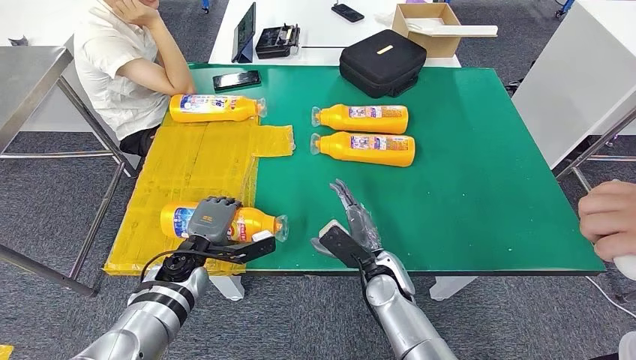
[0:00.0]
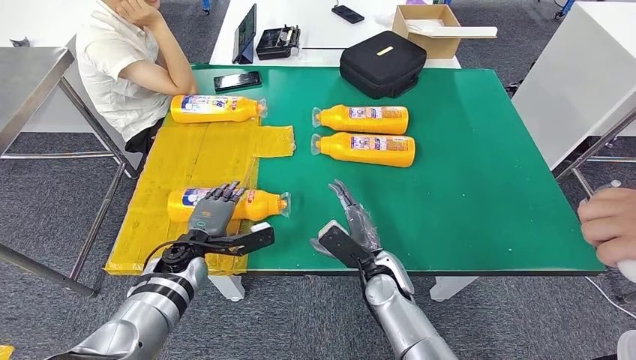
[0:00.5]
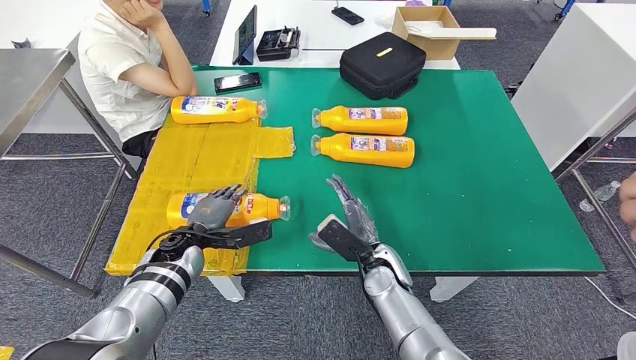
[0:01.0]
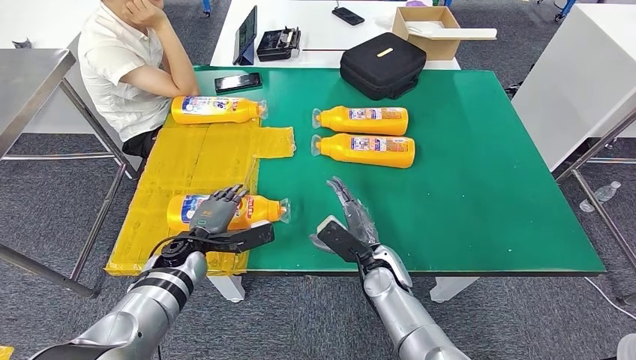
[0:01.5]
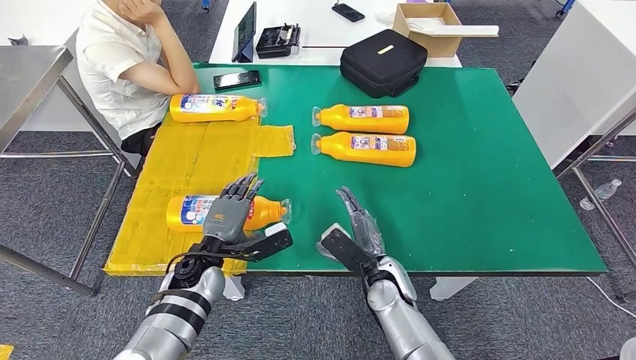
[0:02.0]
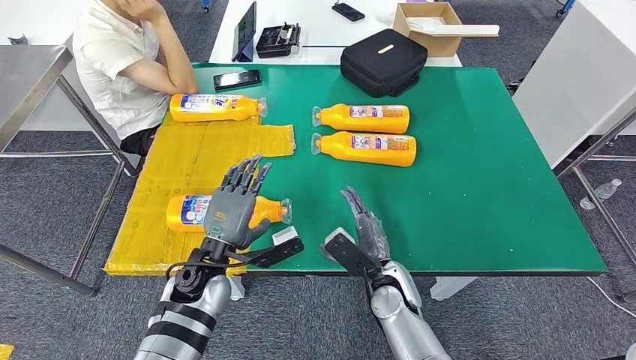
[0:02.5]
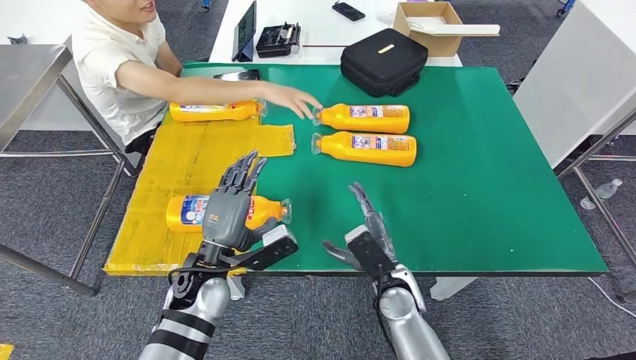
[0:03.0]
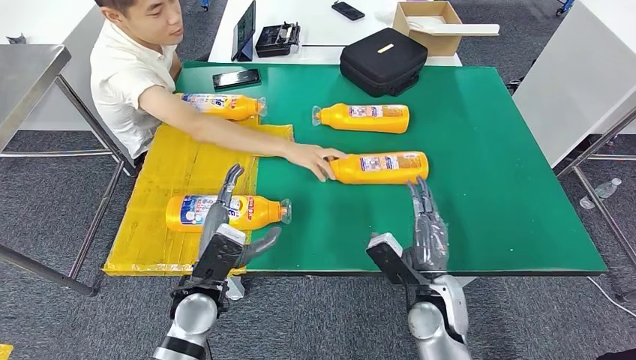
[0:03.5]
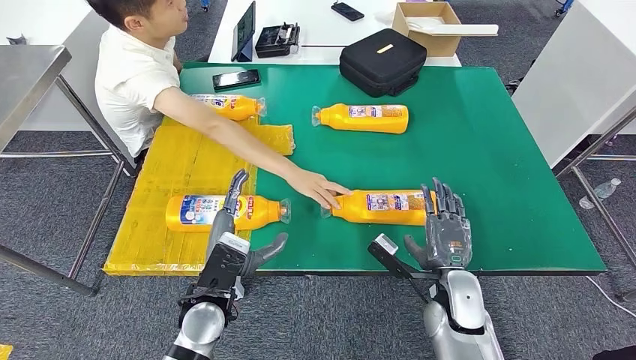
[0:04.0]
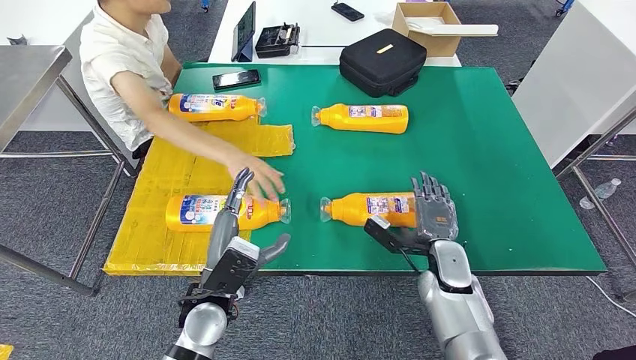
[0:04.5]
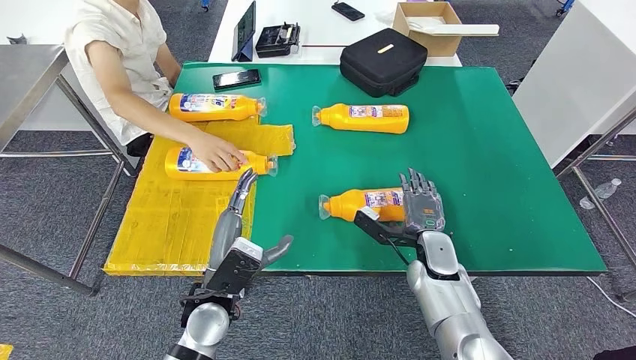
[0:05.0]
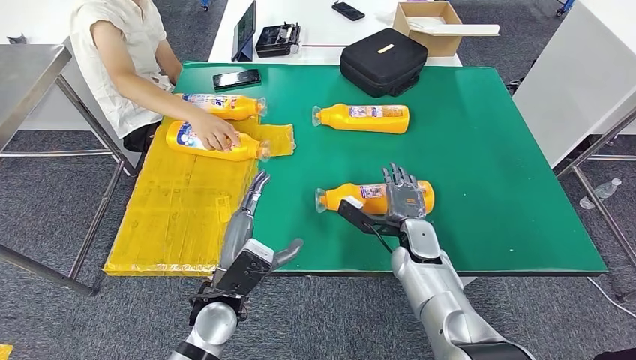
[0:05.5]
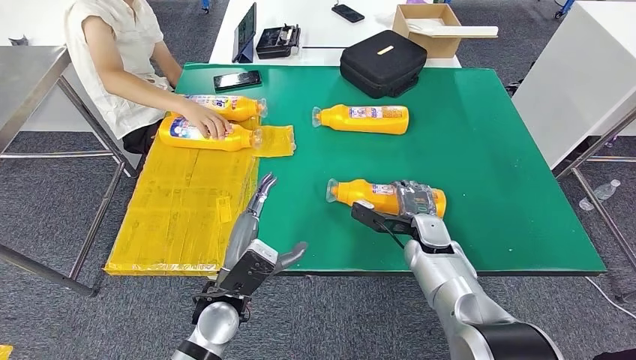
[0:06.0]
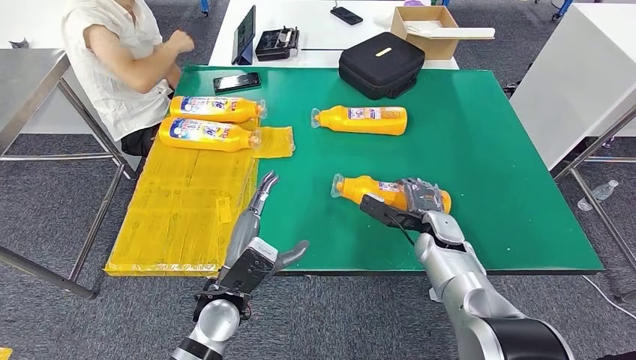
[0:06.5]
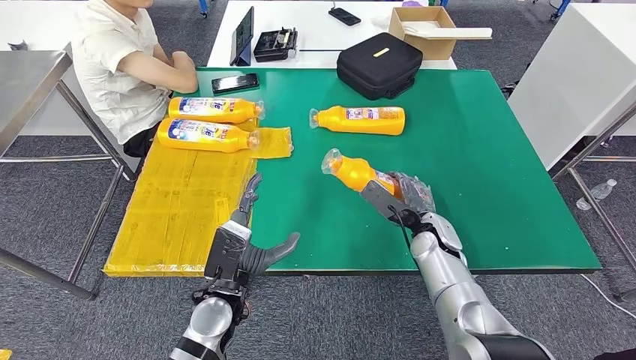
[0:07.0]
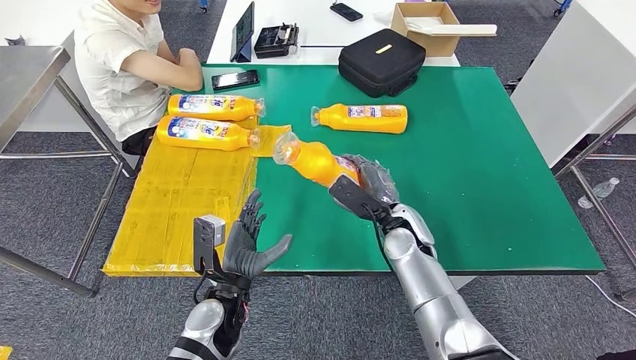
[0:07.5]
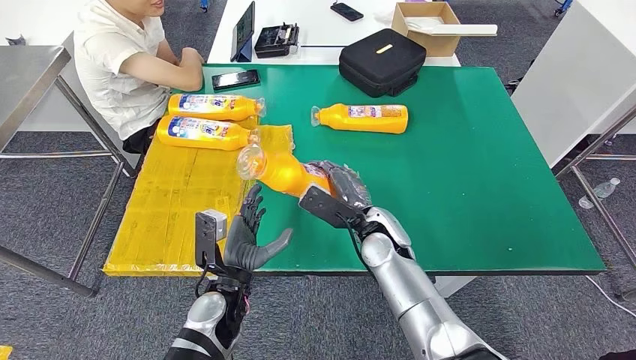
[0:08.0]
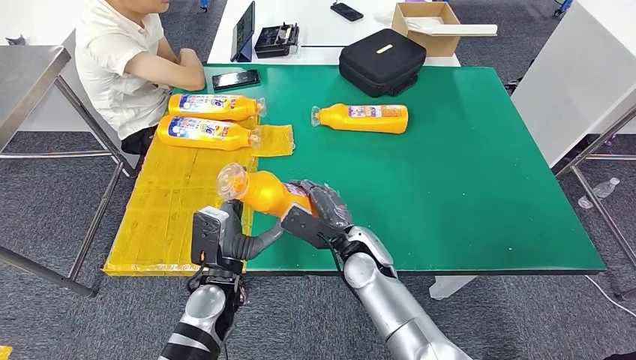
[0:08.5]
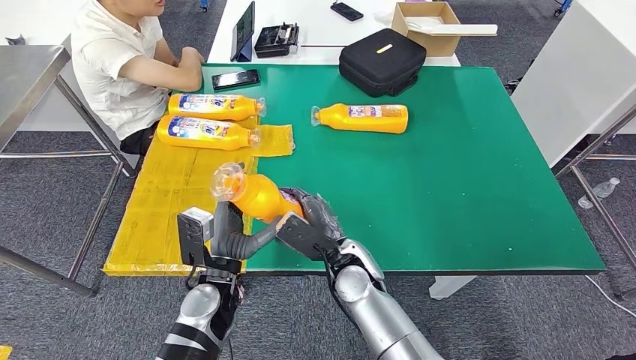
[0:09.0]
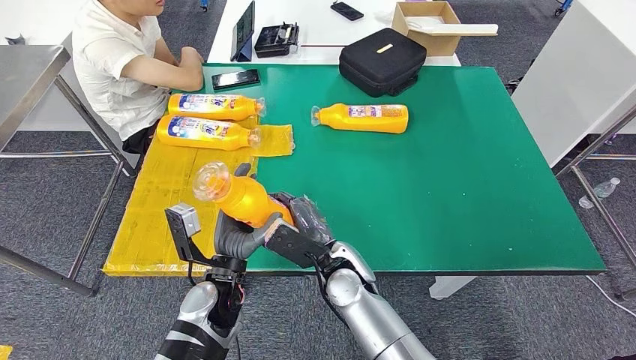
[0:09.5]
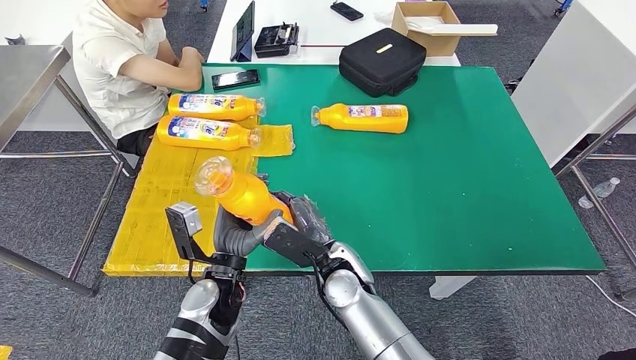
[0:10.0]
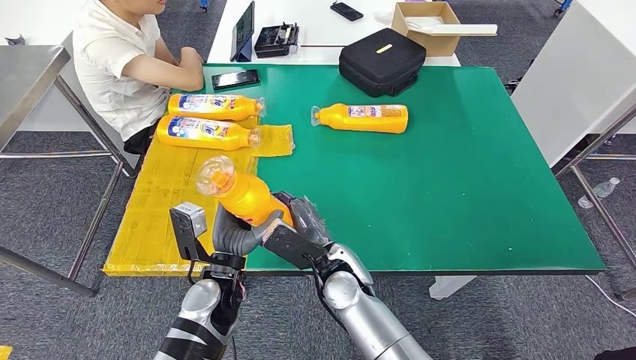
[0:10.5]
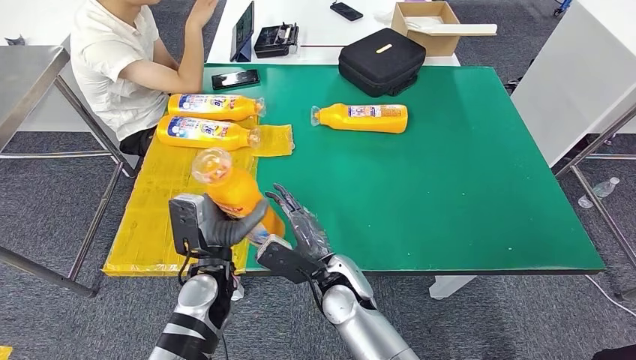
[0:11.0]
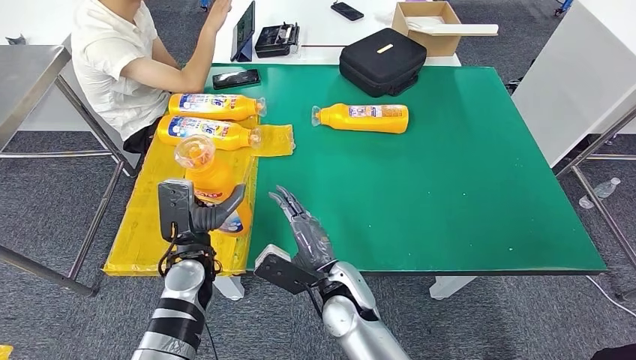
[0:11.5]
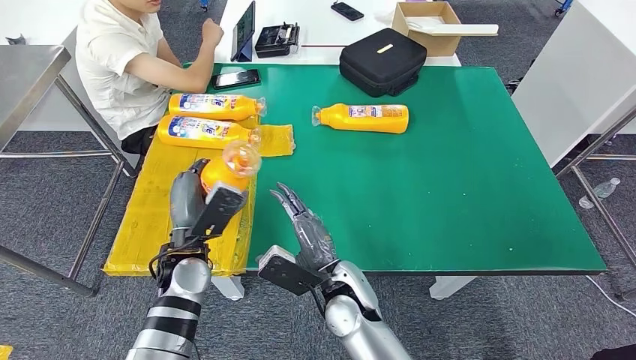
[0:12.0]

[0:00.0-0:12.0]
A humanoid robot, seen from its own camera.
Step, 0.0 to 4.0 s: Flip the fast-moving consumer goods bottle to the front side.
Step, 4.5 to 9.5 s: Pick up the fast-moving consumer goods bottle from the table.
0.0 to 2.0 s: The hands stay close to where they were, moving slightly.
8.0 to 10.0 s: The right hand shifts some 10 cm to the left and backward.
10.0 to 12.0 s: The left hand shifts approximately 5 cm to the left.

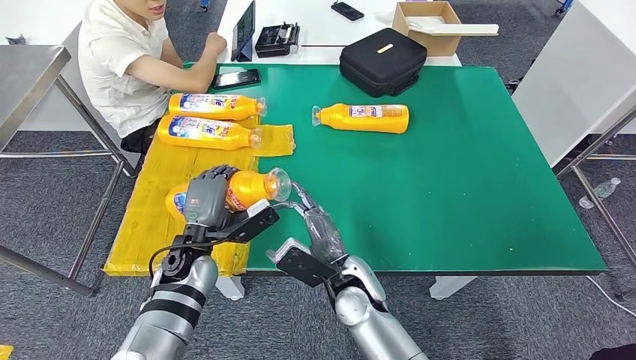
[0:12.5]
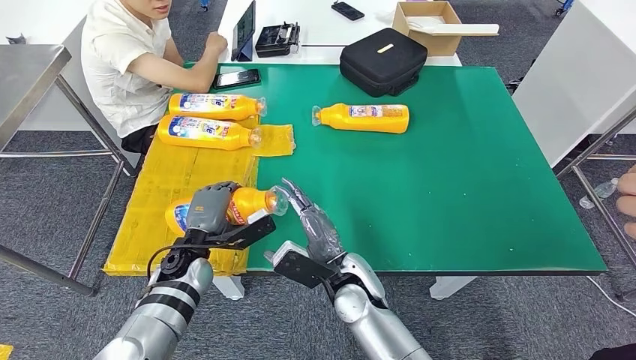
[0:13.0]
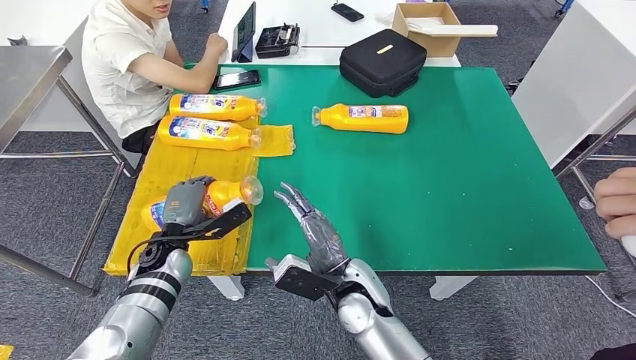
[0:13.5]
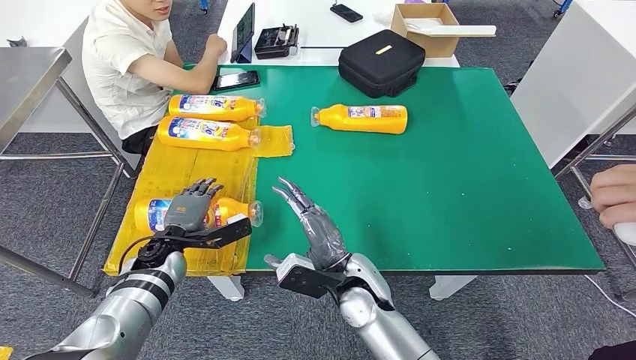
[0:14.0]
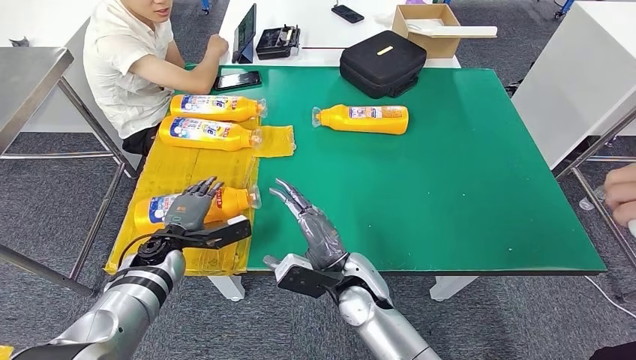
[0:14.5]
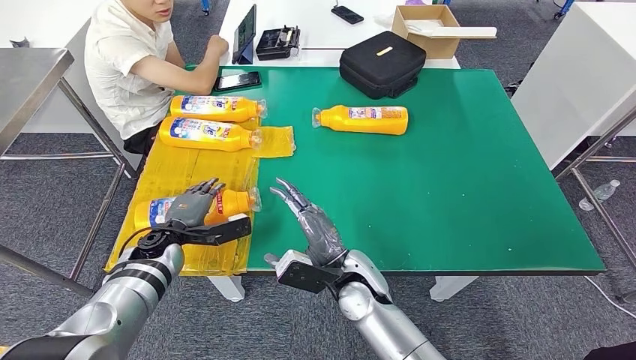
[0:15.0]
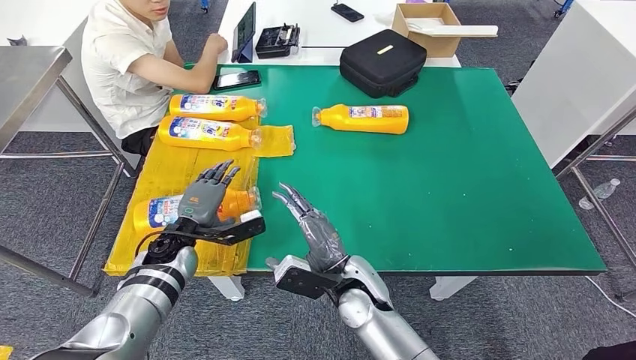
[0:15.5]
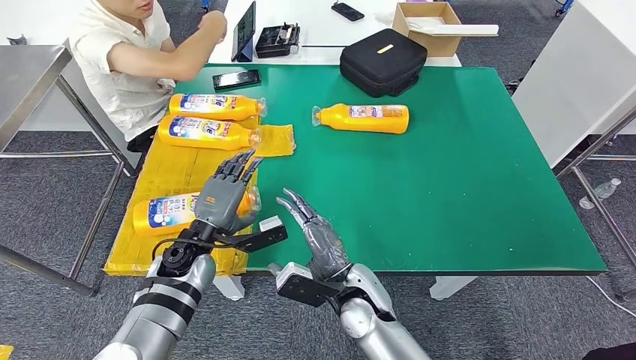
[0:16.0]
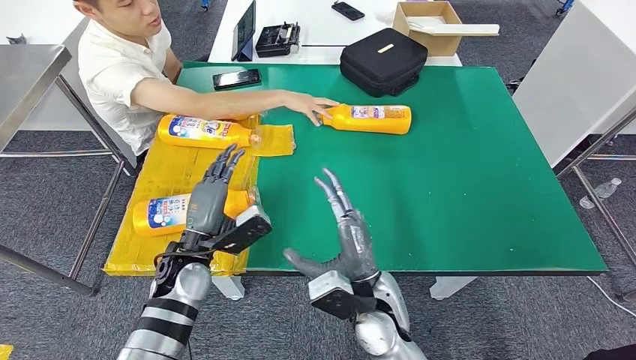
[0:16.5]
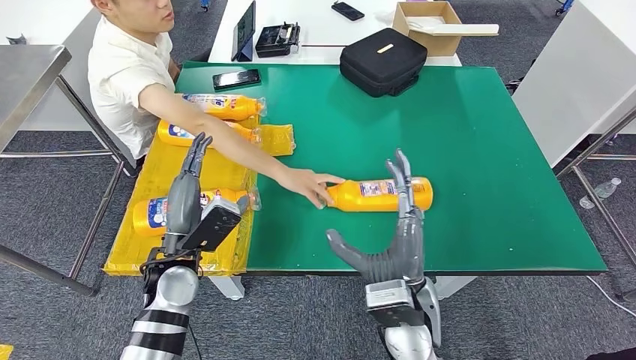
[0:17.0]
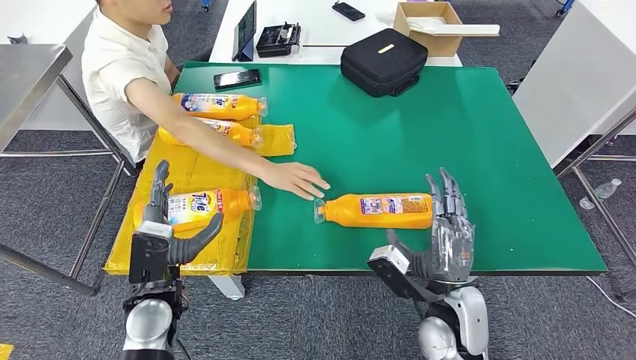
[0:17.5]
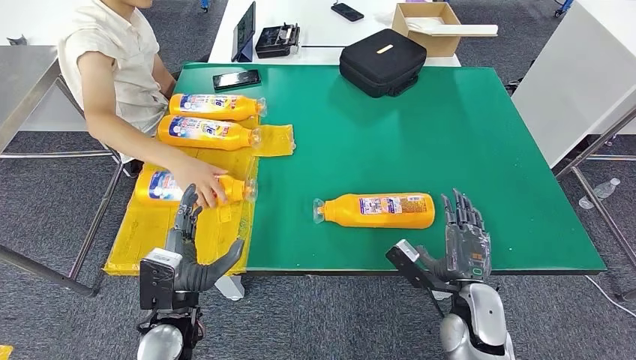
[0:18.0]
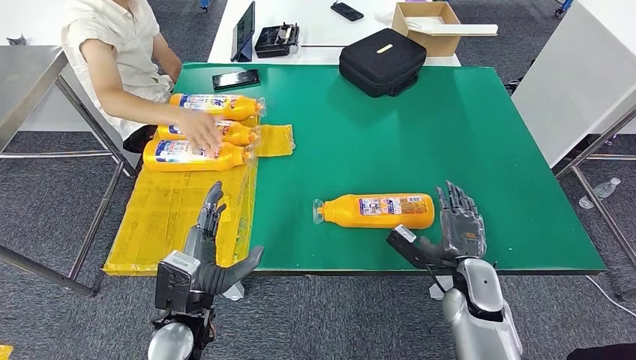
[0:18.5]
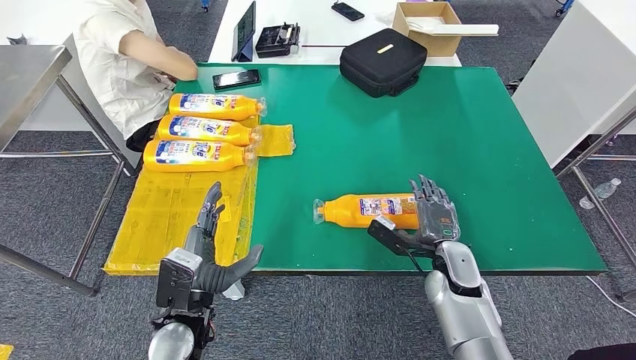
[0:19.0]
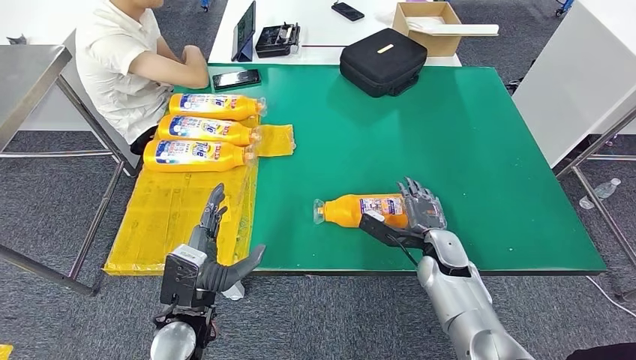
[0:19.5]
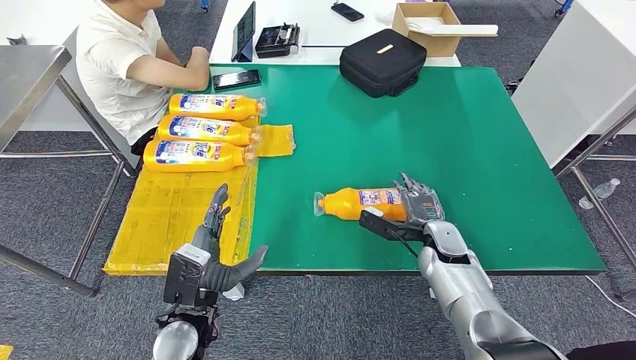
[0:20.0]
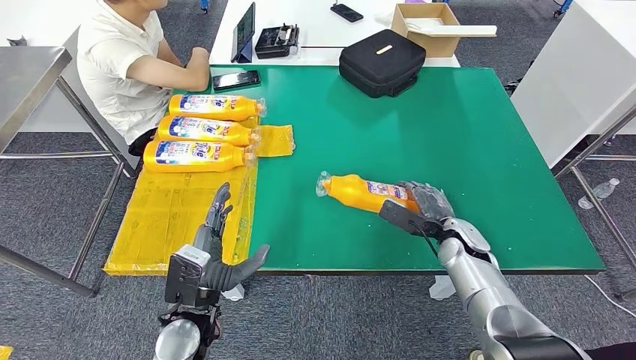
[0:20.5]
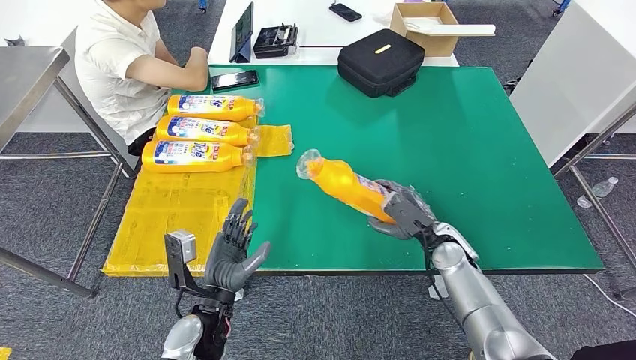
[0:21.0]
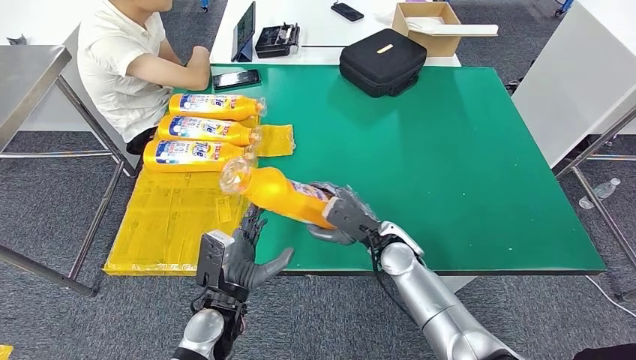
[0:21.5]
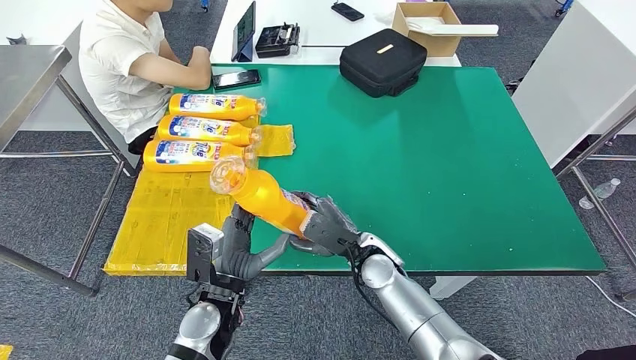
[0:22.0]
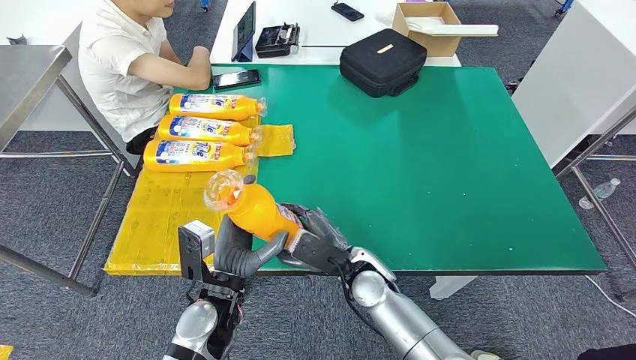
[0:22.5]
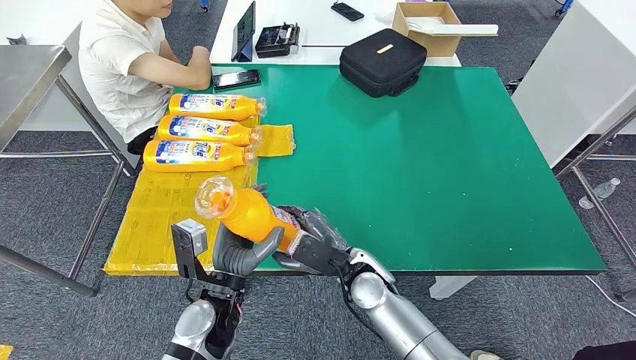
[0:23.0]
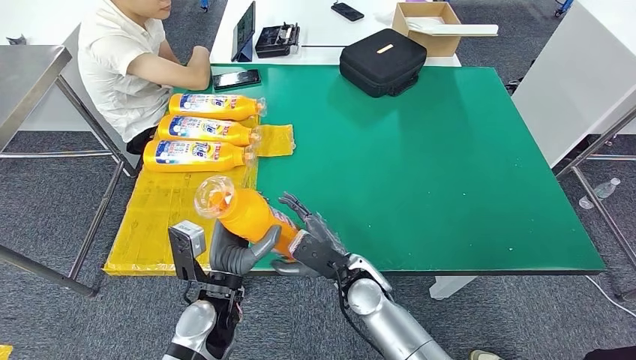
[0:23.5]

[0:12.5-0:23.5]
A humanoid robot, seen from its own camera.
Step, 12.5 to 17.0 s: Flip the fast-moving consumer goods bottle to the front side.
Step, 17.5 to 23.0 s: Pick up the fast-moving consumer goods bottle from the table.
12.5 to 14.5 s: The left hand shifts approximately 10 cm to the left.
18.0 to 20.0 s: The right hand is displaced forward by about 15 cm.
20.0 to 21.5 s: The left hand changes place by approximately 5 cm; the right hand moves to the left, approximately 10 cm.
21.5 to 23.5 s: The right hand is displaced to the left and backward by roughly 10 cm.
